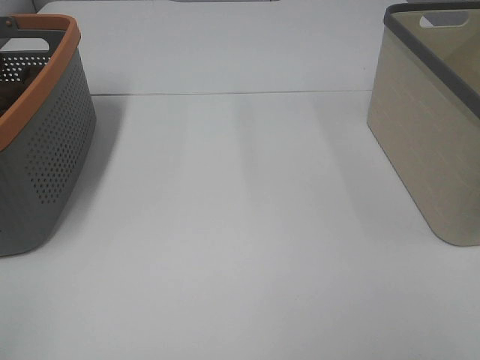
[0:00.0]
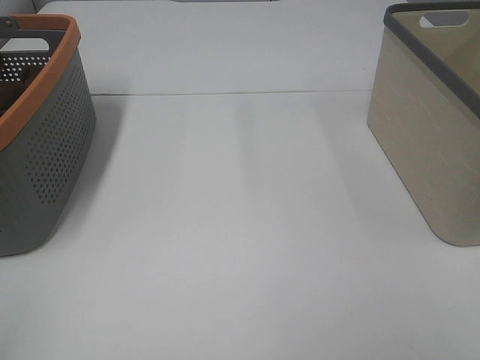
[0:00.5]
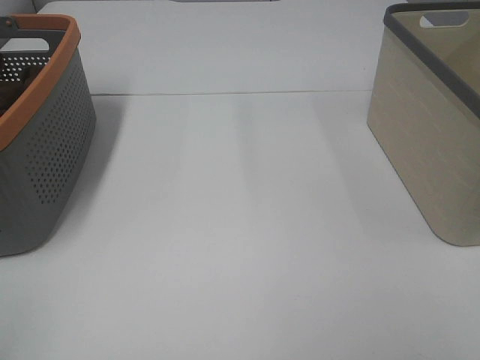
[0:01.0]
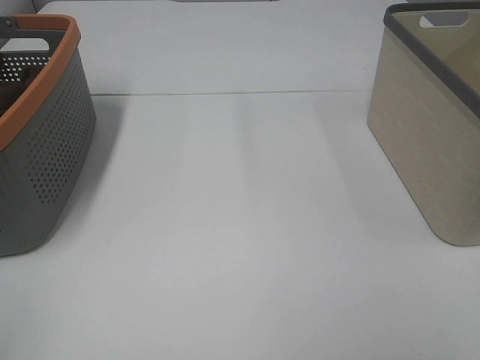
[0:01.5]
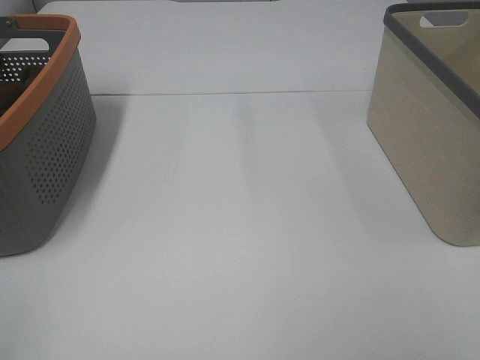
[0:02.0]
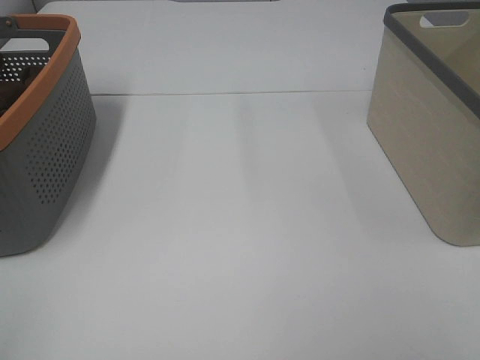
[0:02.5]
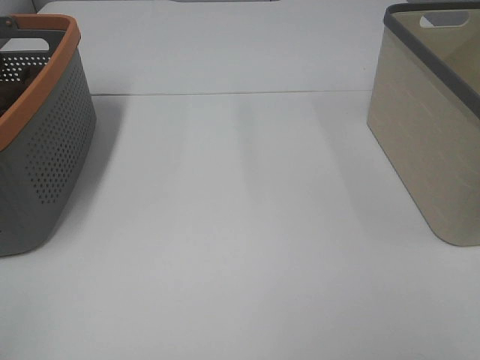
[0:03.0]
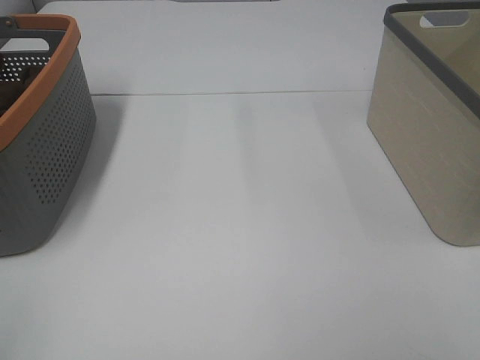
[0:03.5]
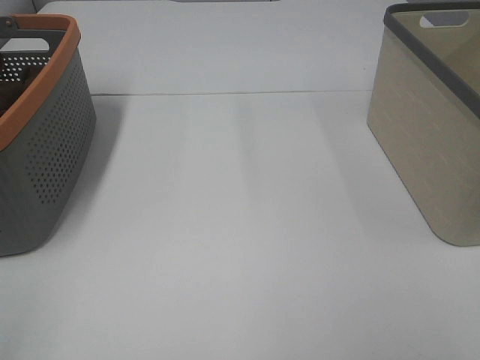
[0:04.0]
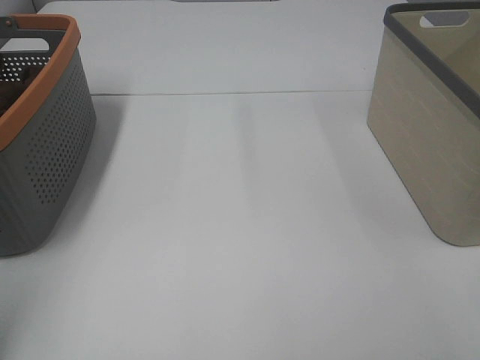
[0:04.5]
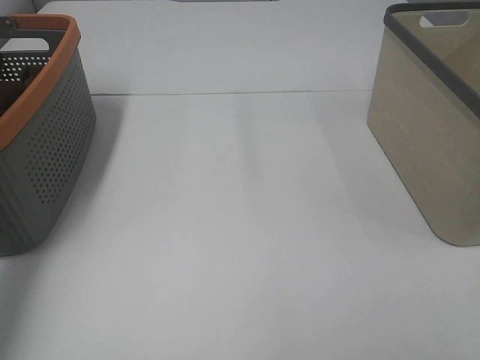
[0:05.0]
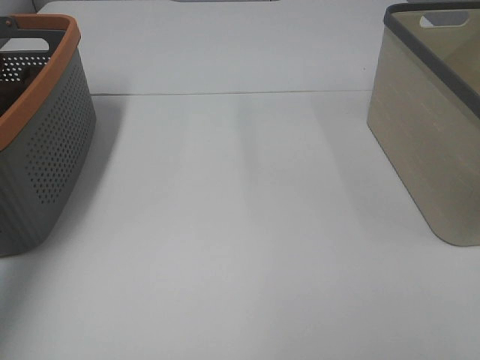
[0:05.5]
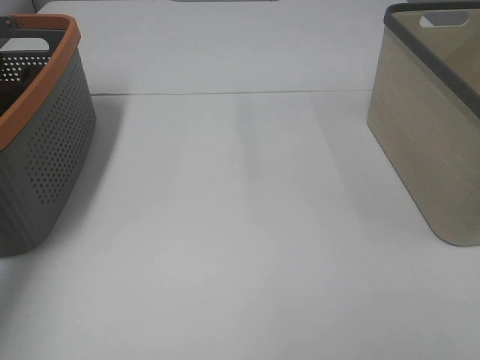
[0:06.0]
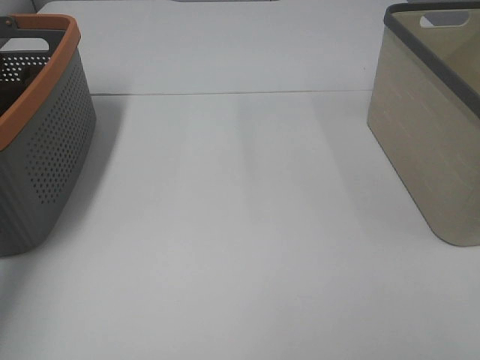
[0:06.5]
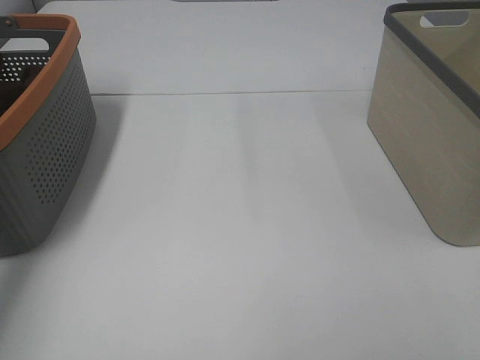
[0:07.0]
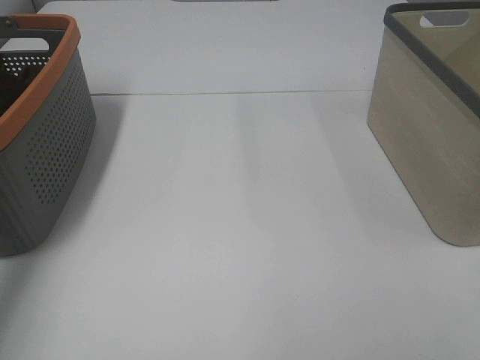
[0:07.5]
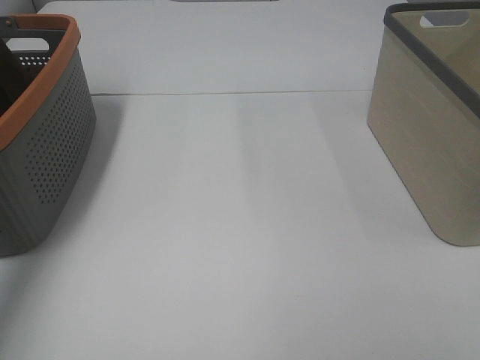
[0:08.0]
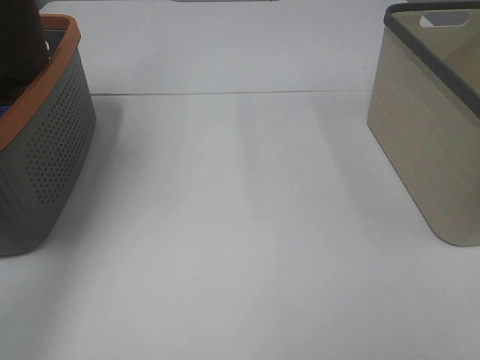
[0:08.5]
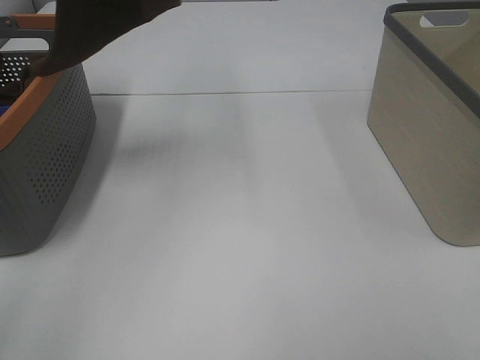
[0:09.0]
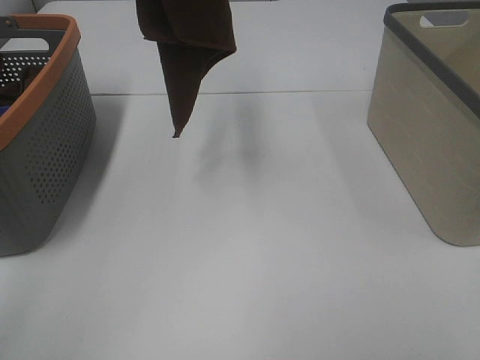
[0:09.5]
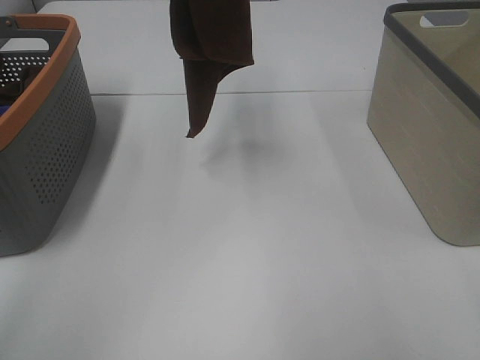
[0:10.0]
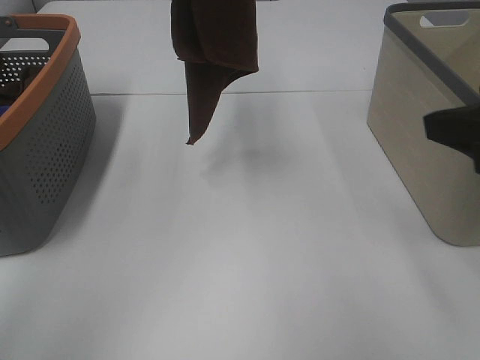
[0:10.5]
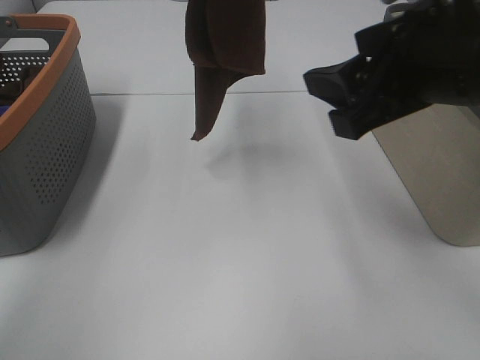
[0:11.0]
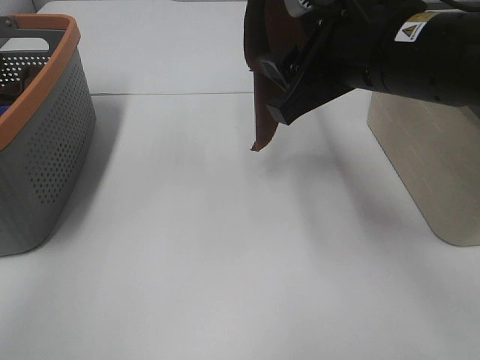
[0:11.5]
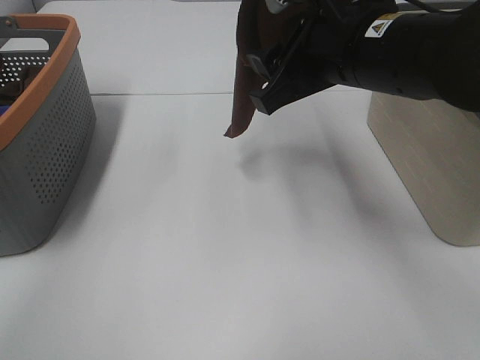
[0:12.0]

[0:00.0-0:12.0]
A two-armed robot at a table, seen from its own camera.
Task of the whole recording: Remove the towel and place it.
0:00.0 to 0:04.0: Both grippers stay about where they are.
0:04.0 to 0:06.0: The left gripper moves forward, about 40 cm.
0:08.0 to 0:10.0: The right gripper travels forward by about 5 cm, while the left gripper moves to the right, about 20 cm.
0:10.0 to 0:12.0: The left gripper is displaced to the right by some 5 cm, while the right gripper goes some 30 cm forward and to the left.

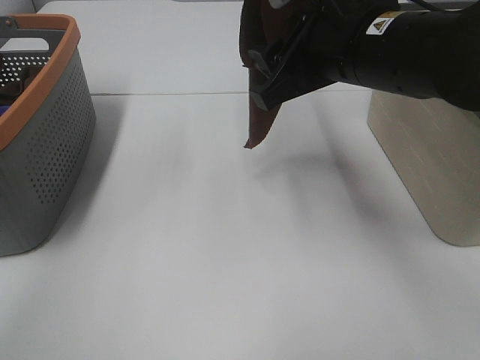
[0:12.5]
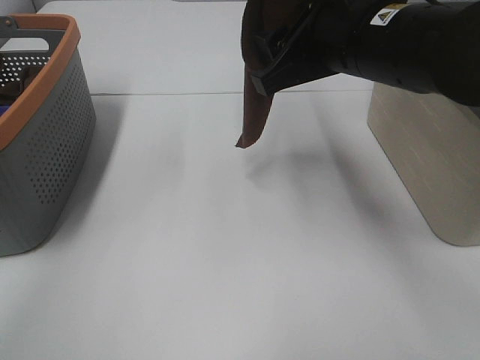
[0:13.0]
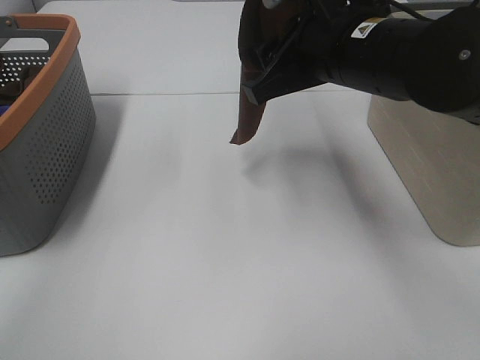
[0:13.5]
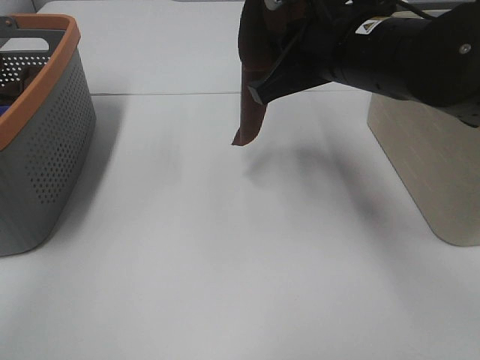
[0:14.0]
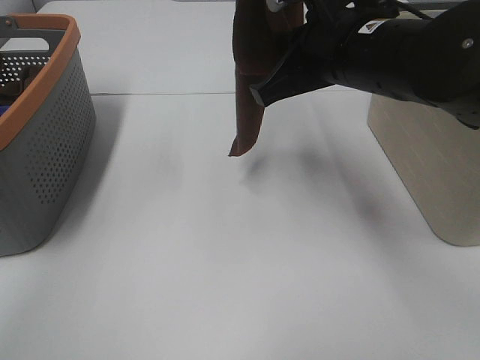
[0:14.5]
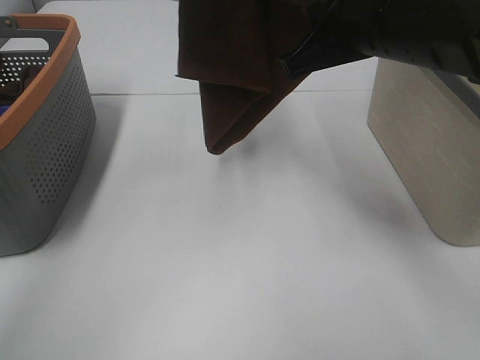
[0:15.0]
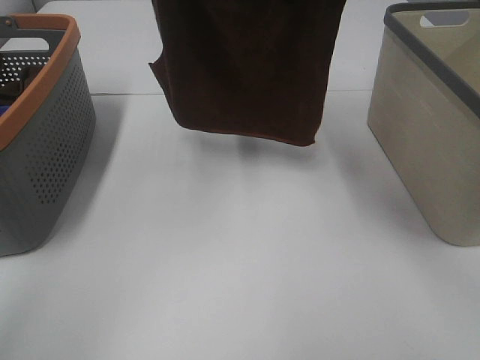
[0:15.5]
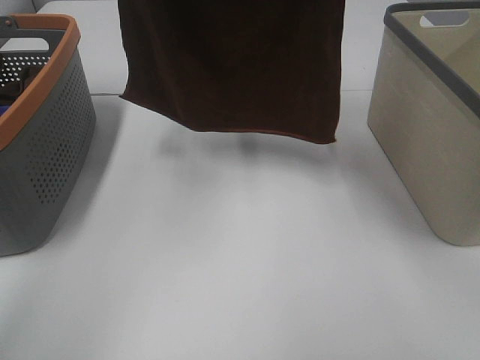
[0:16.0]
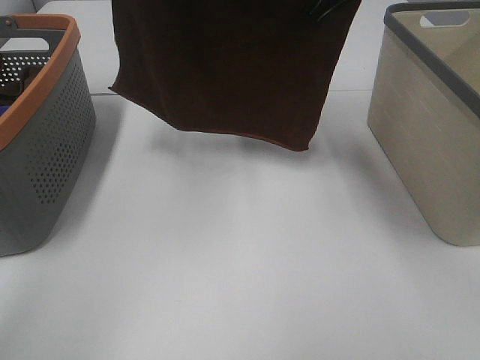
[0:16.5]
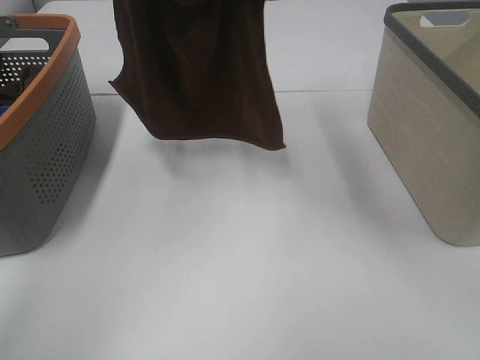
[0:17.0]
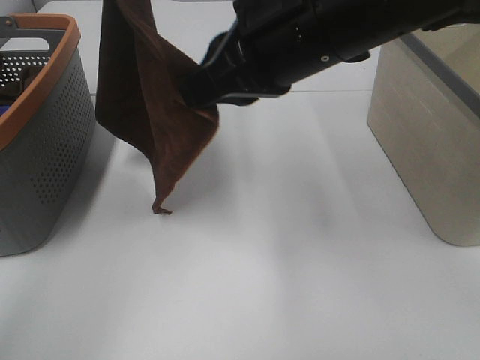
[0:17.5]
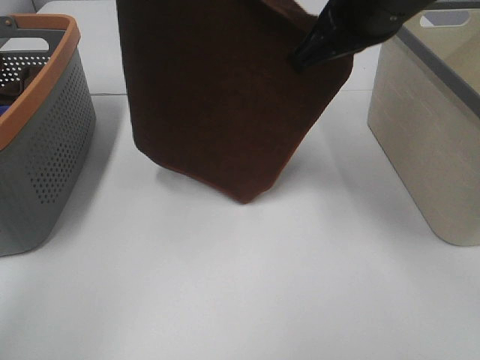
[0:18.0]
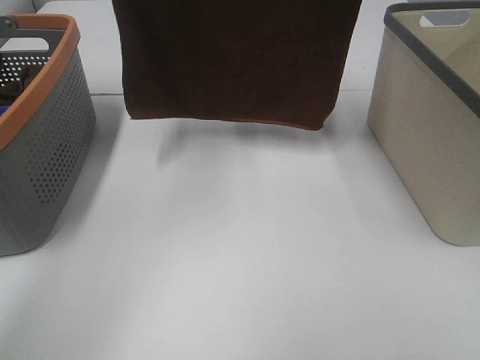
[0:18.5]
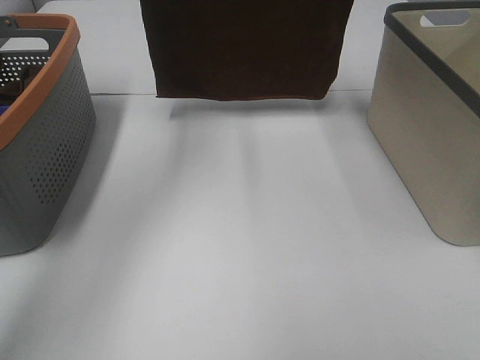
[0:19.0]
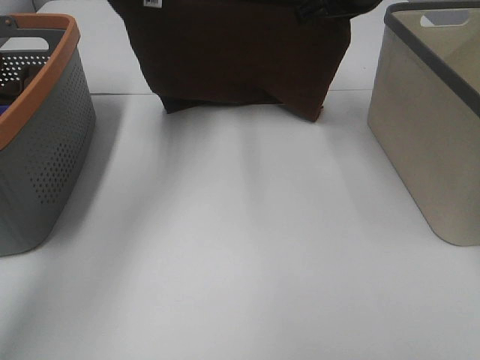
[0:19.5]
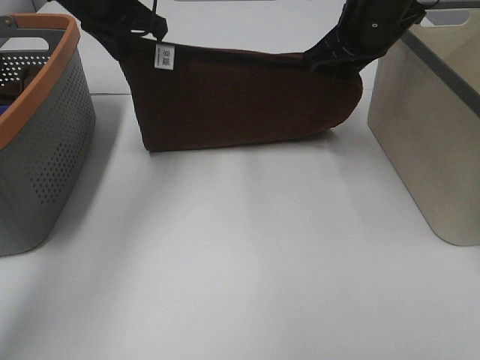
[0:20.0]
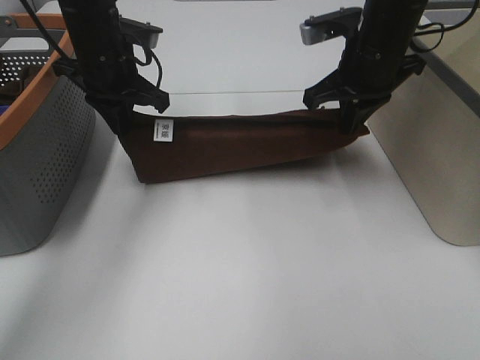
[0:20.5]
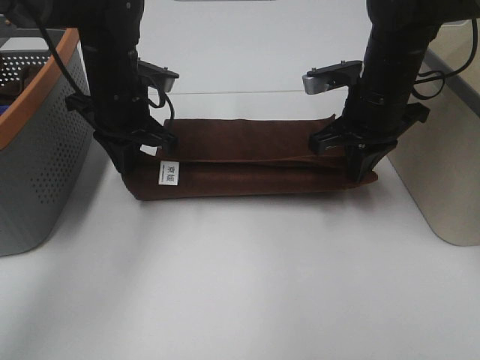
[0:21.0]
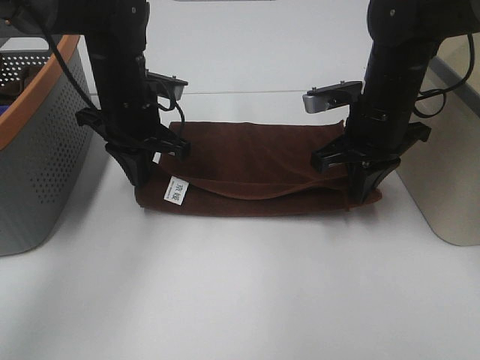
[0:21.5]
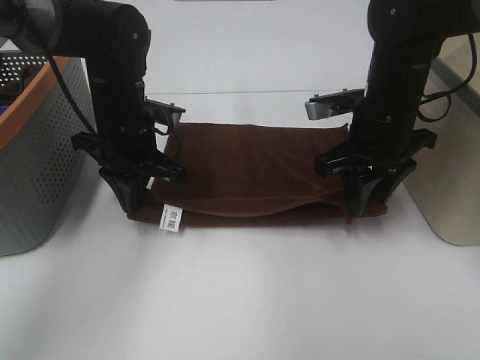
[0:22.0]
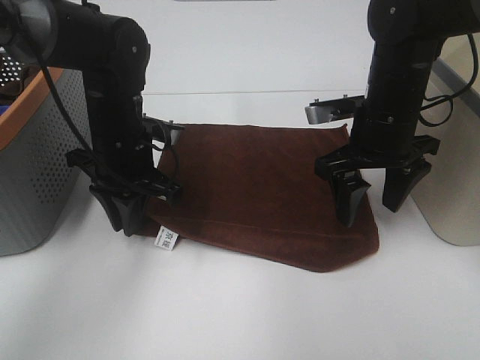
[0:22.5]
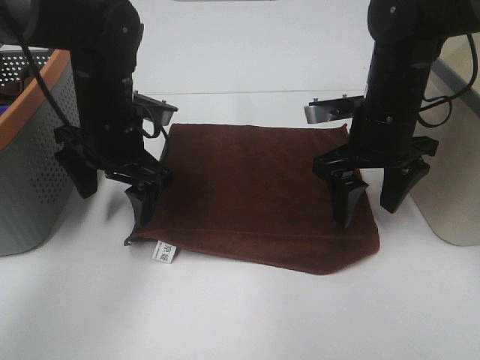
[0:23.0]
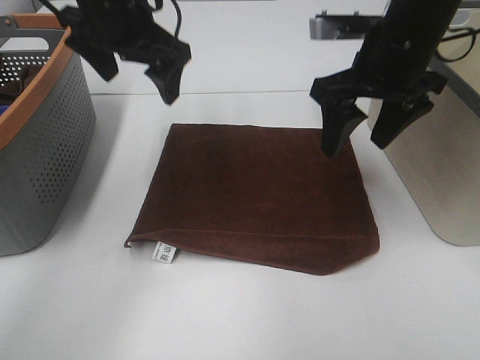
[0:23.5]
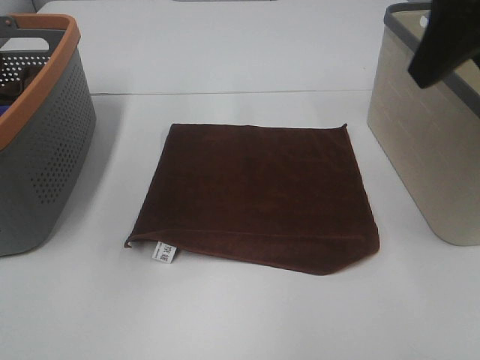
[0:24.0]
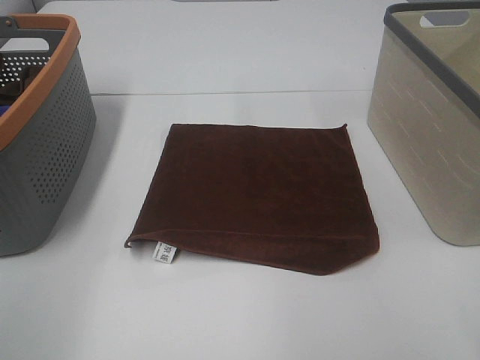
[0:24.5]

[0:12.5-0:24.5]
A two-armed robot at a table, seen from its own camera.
Task of the whole recording: Remove the towel and place it.
Step, 0:12.5 to 0:14.5: Right hand: grab a corner of the brown towel and straighten it.
Step, 0:15.0 to 0:17.5: Right hand: spread the brown towel flat on the table.
0:12.5 to 0:14.5: The right gripper closes.
0:14.5 to 0:16.5: The right gripper moves upward, roughly 10 cm. The left gripper goes some 10 cm to the left.
0:16.5 to 0:18.5: The right gripper shifts roughly 10 cm forward. Meanwhile the left gripper shifts by some 5 cm.
0:18.5 to 0:20.5: The right gripper is displaced downward by about 15 cm; the left gripper is displaced downward by some 25 cm.
0:20.5 to 0:22.5: The left gripper moves backward and downward, about 10 cm. Meanwhile the right gripper shifts approximately 5 cm backward, and opens.
0:22.5 to 0:24.5: The right gripper goes some 30 cm backward and upward; the left gripper shifts roughly 40 cm backward, upward and to the left, and opens up.

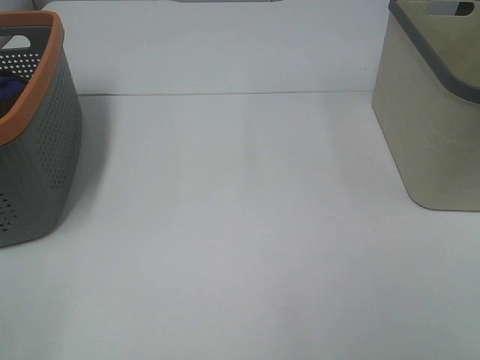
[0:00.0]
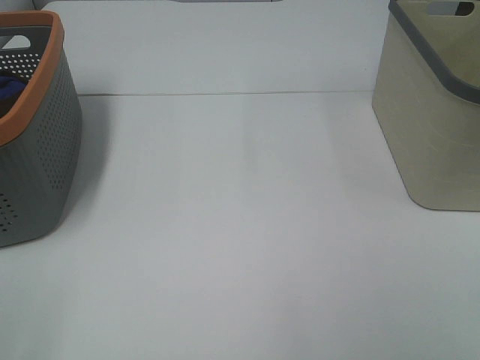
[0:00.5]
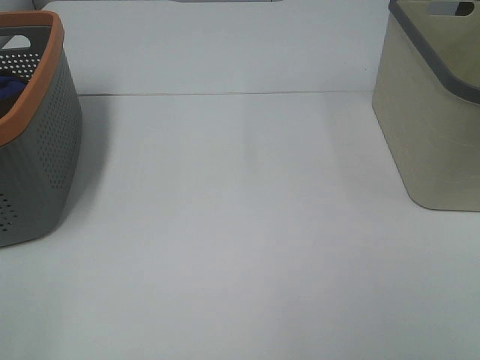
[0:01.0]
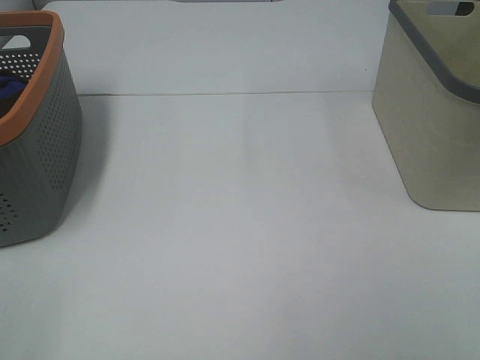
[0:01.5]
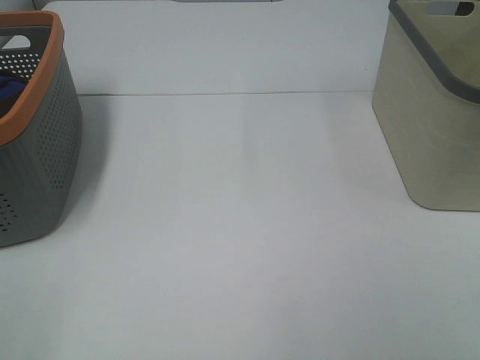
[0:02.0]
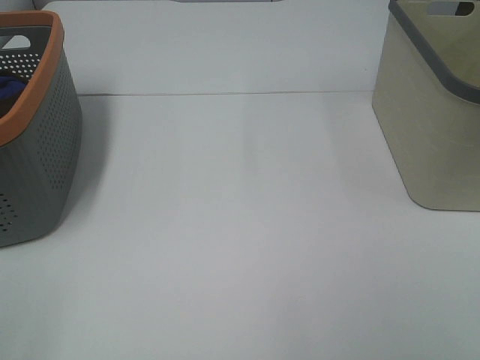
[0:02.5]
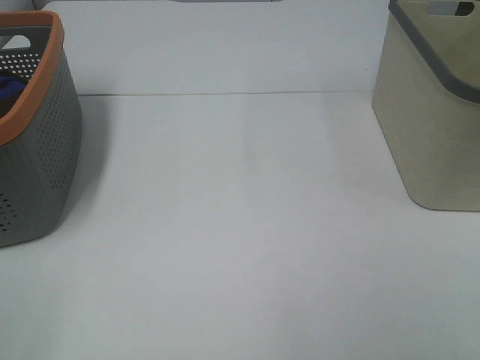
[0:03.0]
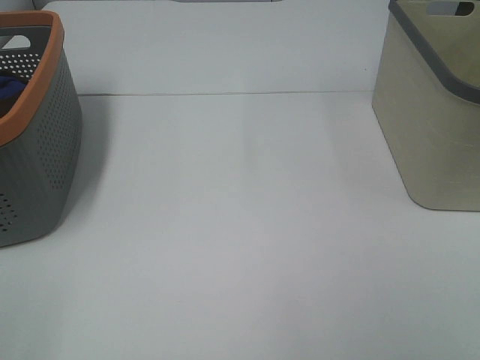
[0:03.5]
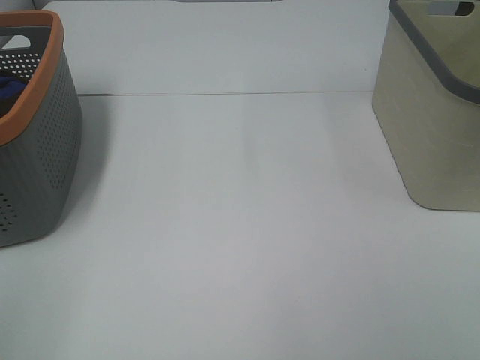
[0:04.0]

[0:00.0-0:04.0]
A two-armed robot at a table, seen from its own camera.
Task of the whole recording: Remove the towel and place it.
0:00.0 to 0:02.0: Both grippers stay put.
